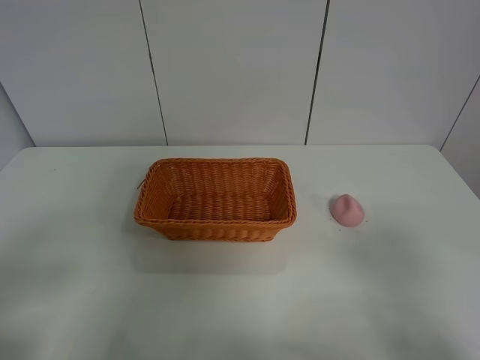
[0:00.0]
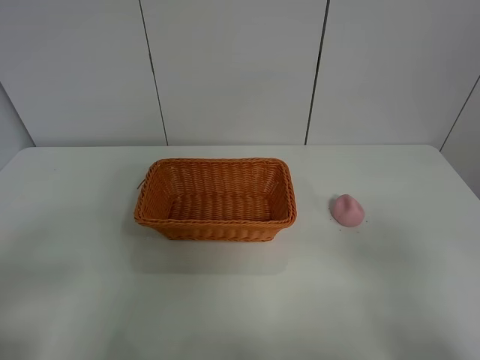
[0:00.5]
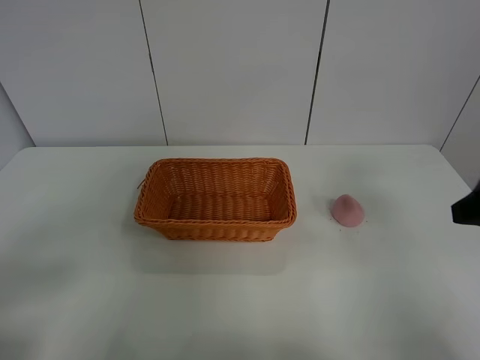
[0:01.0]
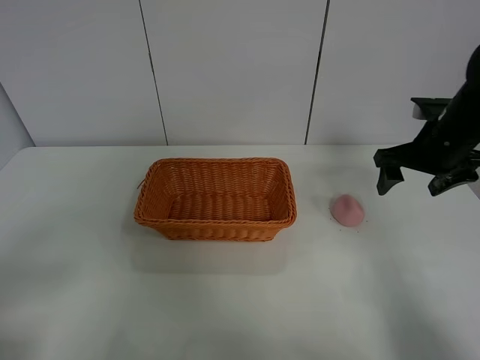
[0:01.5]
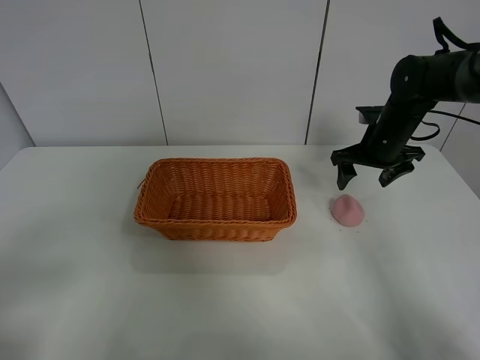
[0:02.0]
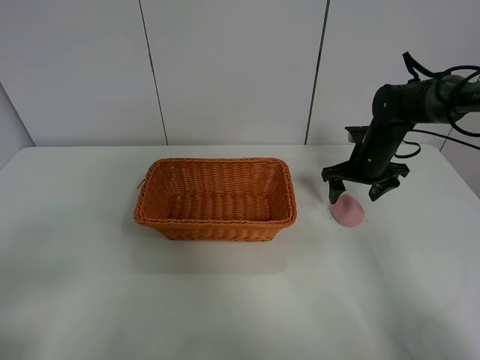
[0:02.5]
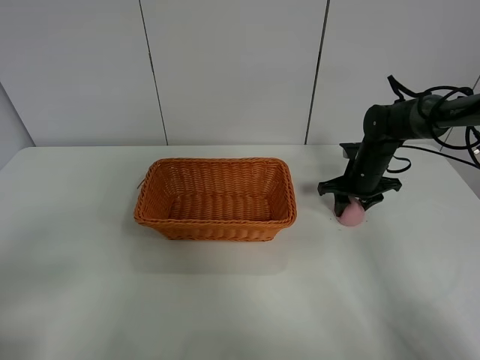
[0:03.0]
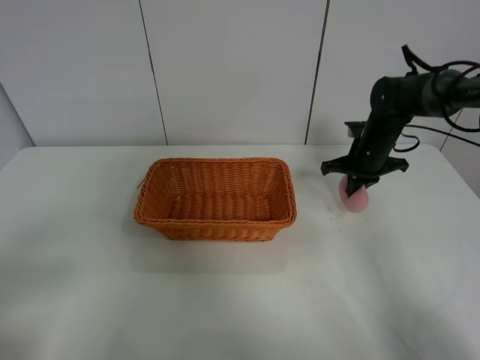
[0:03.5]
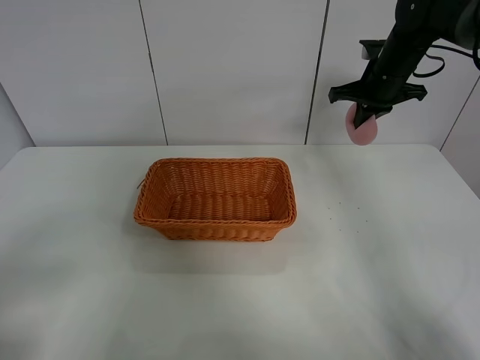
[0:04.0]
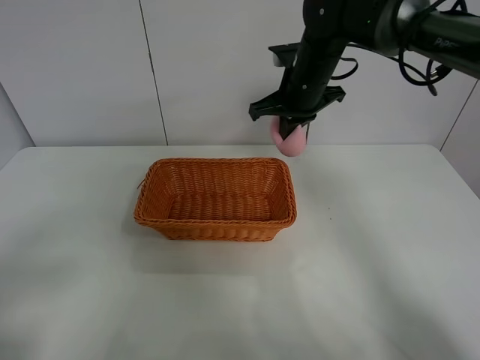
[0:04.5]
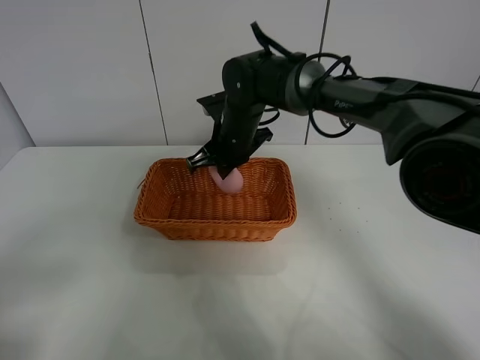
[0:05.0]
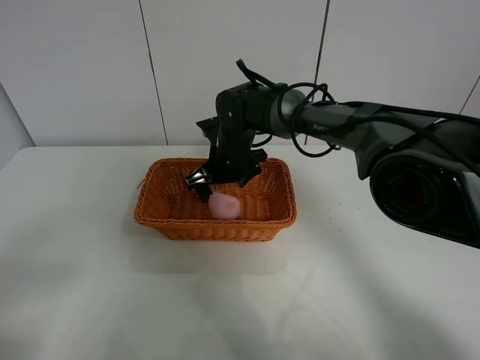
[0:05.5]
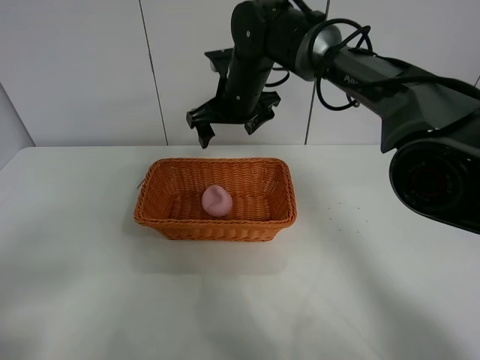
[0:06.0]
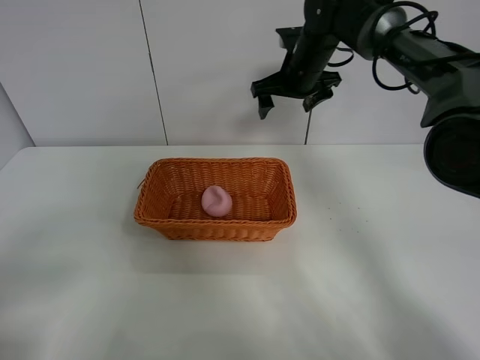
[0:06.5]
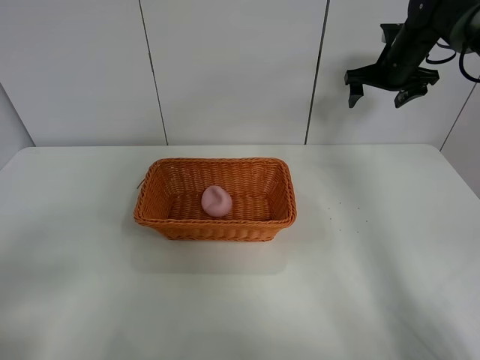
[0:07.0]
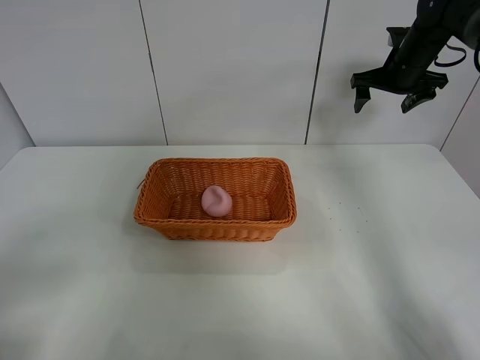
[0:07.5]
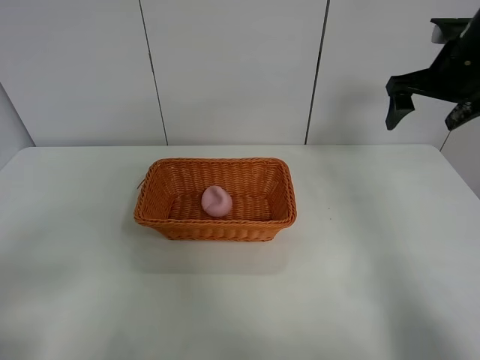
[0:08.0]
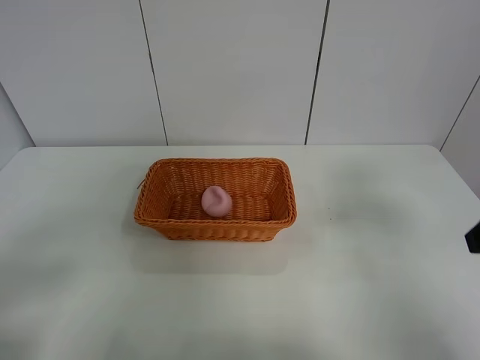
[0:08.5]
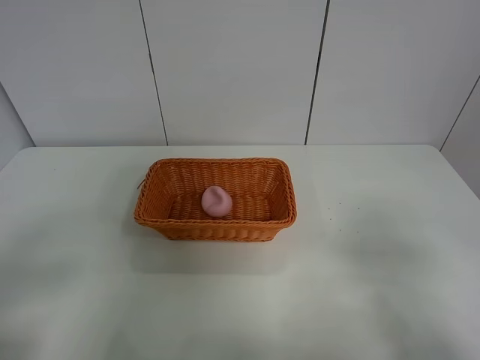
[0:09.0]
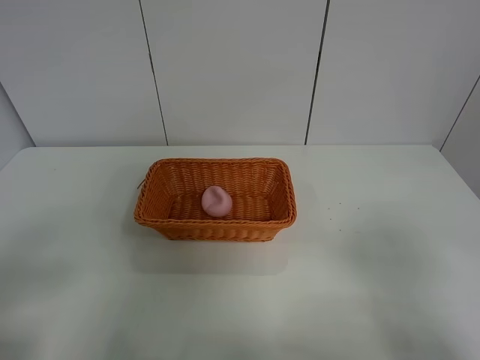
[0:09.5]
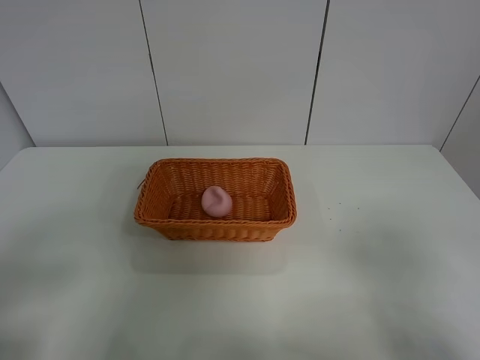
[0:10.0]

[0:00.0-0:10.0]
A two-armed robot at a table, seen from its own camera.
Step, 0:00.0 to 0:03.0: Grasp the peach with right gripper.
Step, 0:03.5 to 0:06.0: Place the peach in the basket with right gripper.
0:00.0 to 0:02.0: The right gripper goes about 40 cm forward.
0:02.0 to 0:04.0: The right gripper goes some 10 cm upward, and closes.
0:04.0 to 0:06.0: The right gripper heads to the left, covering roughly 25 cm, and opens up.
0:06.0 to 0:08.0: The right gripper is displaced to the right by roughly 30 cm.
0:08.0 to 0:10.0: The right gripper travels backward by roughly 35 cm.
